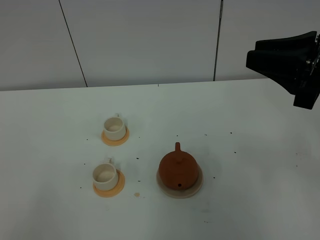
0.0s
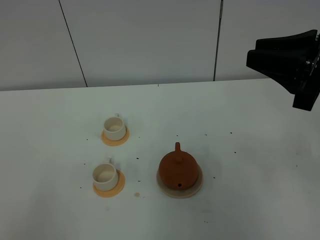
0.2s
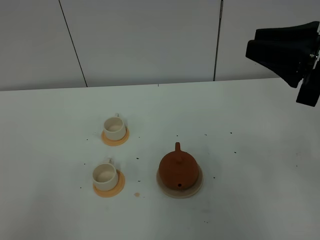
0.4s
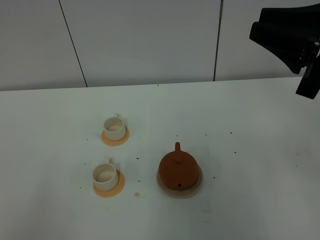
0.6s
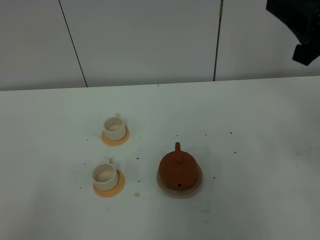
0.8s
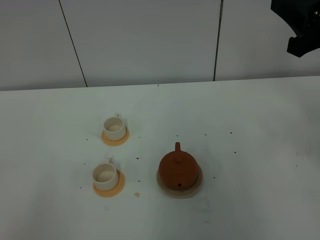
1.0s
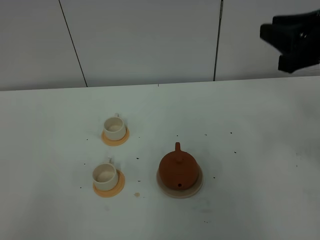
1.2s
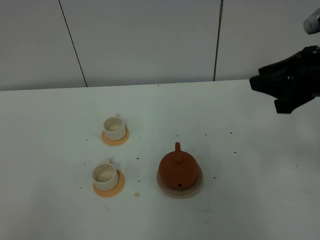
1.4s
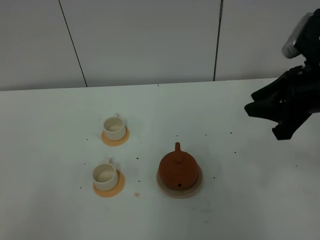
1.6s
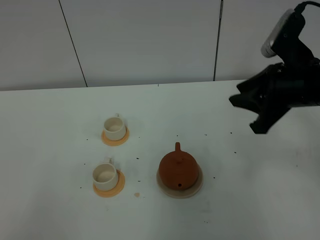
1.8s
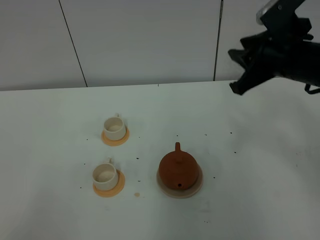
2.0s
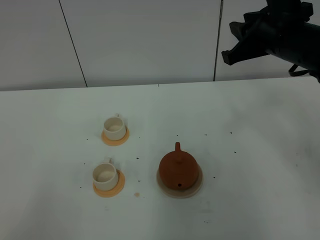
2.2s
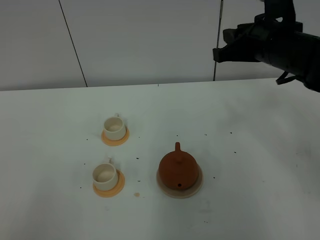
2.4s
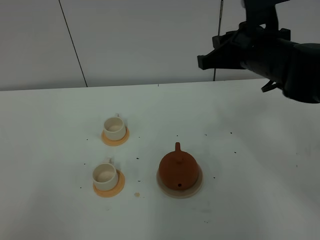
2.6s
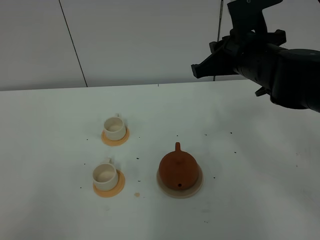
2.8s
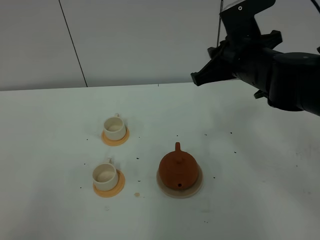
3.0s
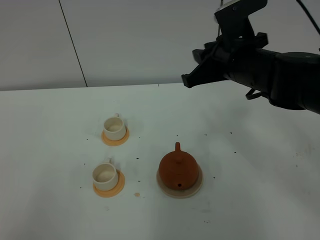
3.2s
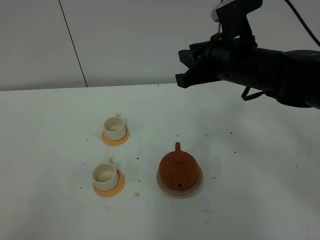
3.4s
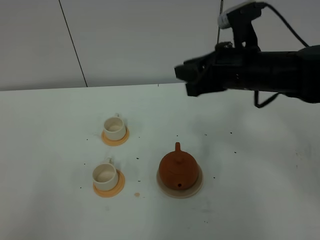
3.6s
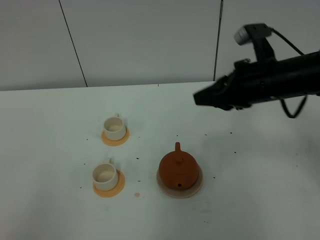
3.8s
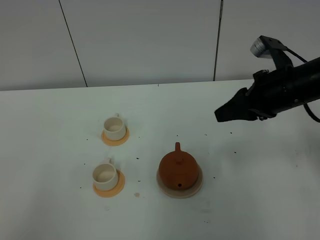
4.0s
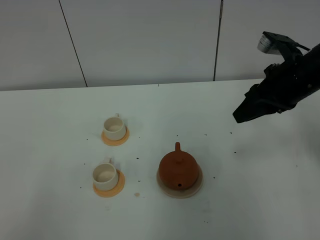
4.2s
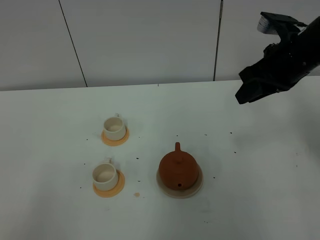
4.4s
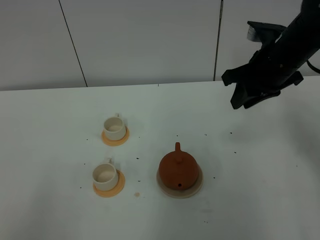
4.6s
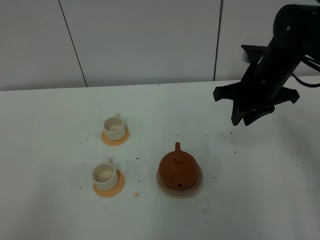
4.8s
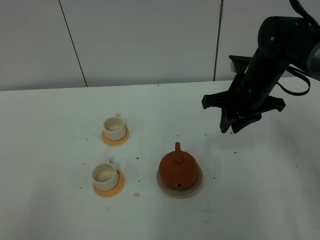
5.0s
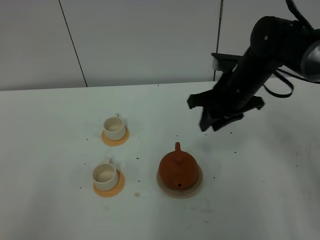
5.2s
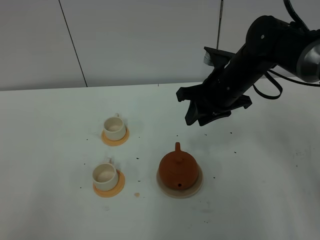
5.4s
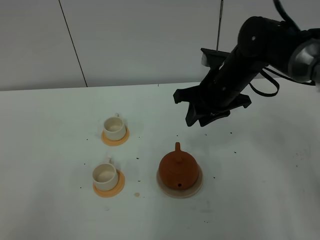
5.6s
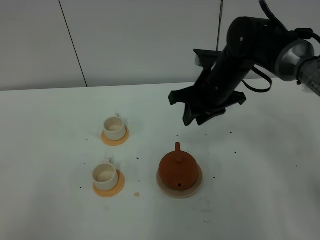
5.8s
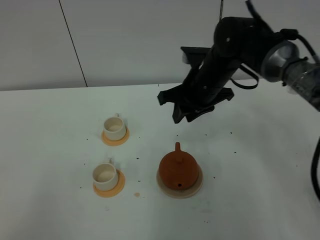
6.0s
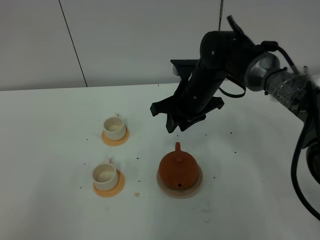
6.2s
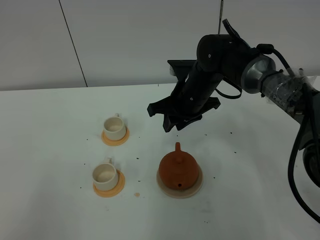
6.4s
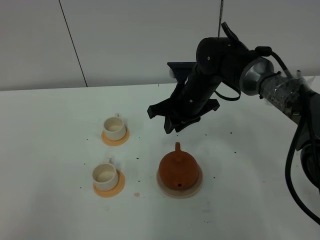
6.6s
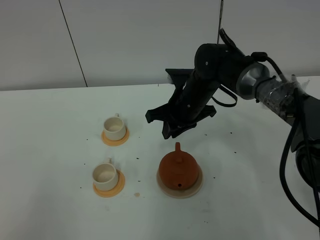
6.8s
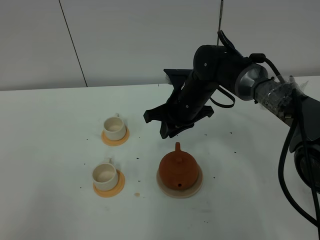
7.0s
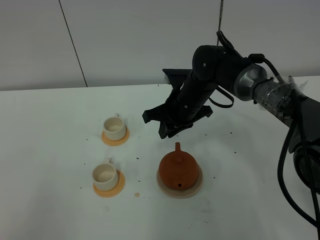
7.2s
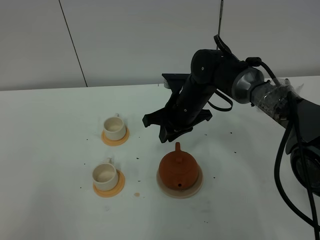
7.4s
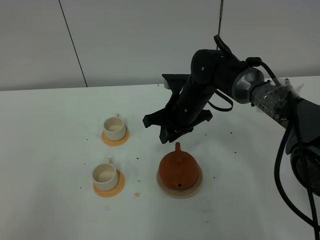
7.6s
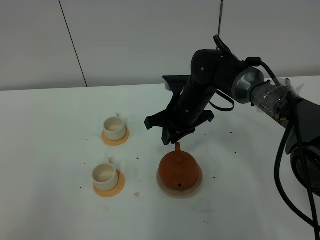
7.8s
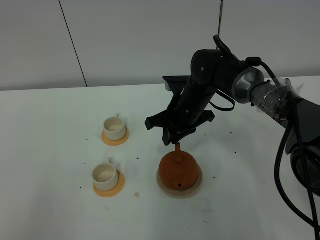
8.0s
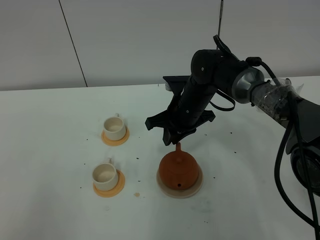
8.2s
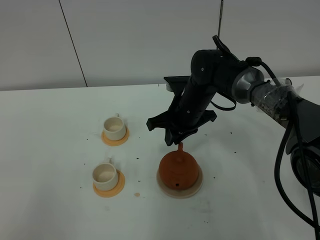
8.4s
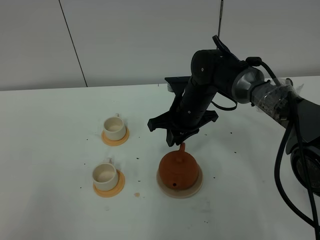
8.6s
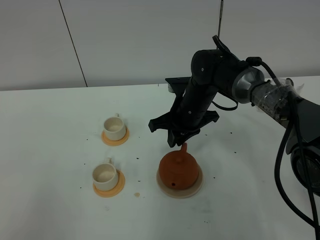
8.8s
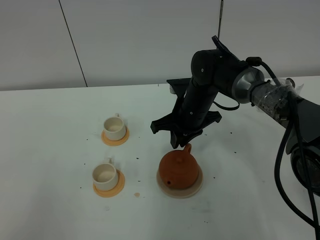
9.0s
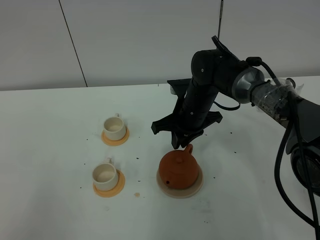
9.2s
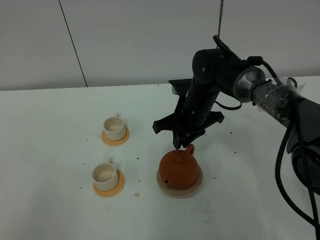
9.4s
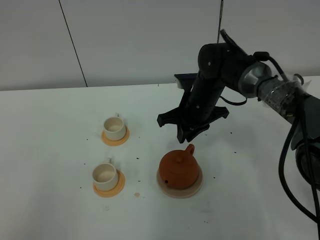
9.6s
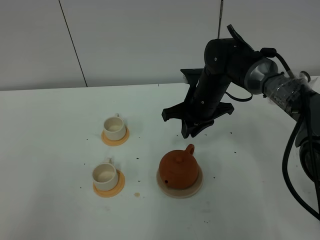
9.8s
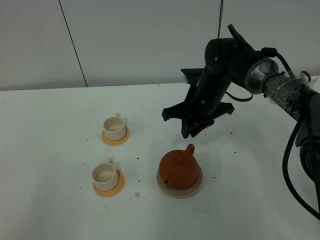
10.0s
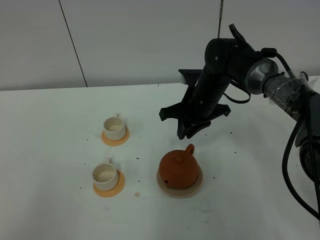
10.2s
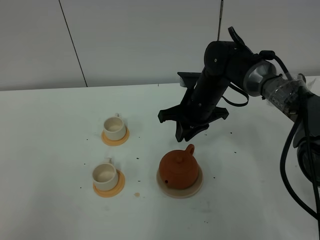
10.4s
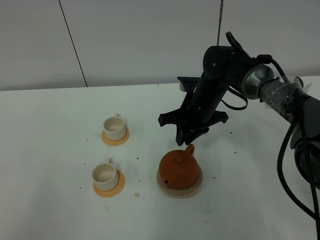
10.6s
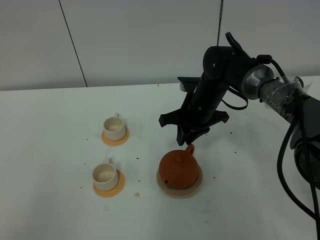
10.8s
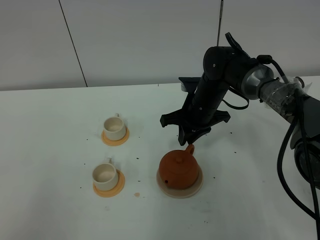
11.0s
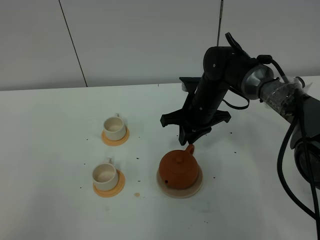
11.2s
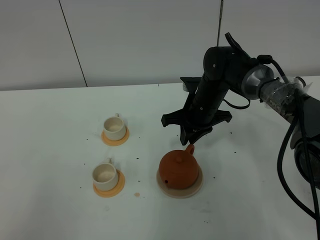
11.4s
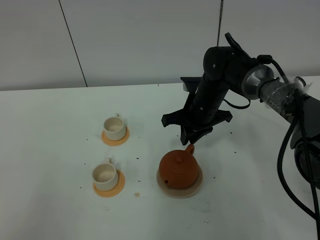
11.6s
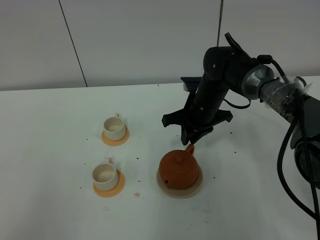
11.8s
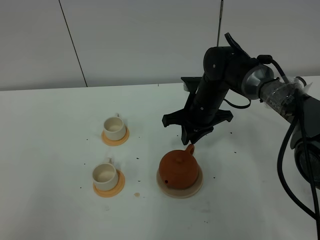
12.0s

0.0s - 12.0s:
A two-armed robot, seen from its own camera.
Task of the whole recording: grasp the brown teapot and pour the tea into the two white teacups one by one, put the brown teapot back in its original place.
0.0s - 1.6s: The right gripper goes some 5 cm downward.
1.6s - 3.0s: The right gripper moves to the left and forward, roughly 10 cm.
3.0s - 4.4s: The right gripper goes some 5 cm to the right.
4.4s - 6.0s: The right gripper travels to the left and downward by roughly 15 cm.
6.0s - 7.6s: The right gripper shifts about 5 cm downward, and closes.
7.6s - 10.4s: The grippers stay close to where they were, moving slightly.
10.4s - 12.0s: The two grippers keep their place.

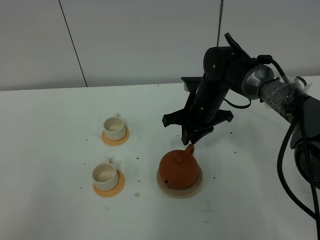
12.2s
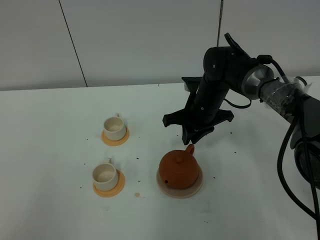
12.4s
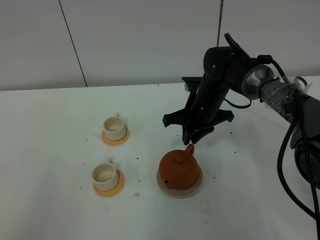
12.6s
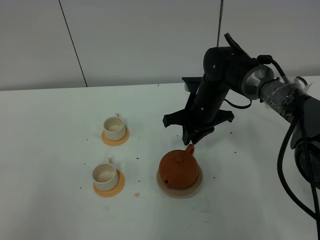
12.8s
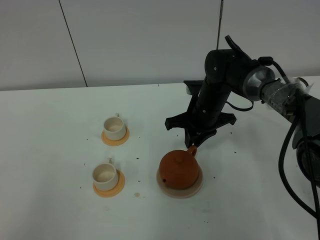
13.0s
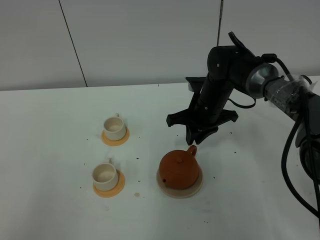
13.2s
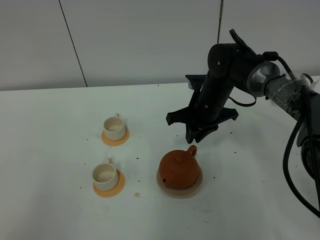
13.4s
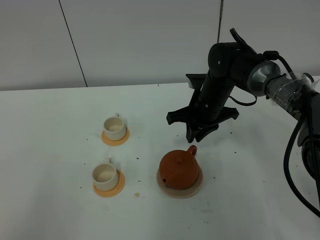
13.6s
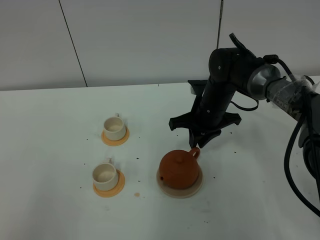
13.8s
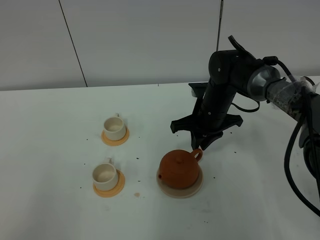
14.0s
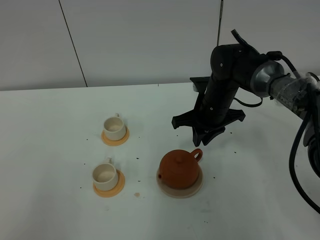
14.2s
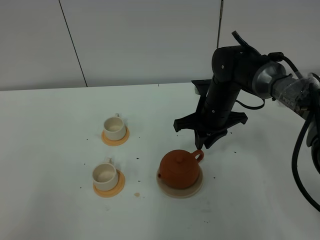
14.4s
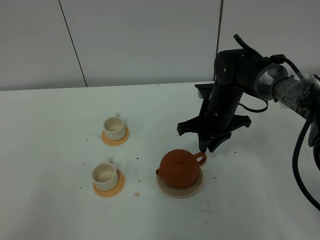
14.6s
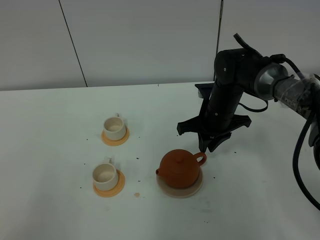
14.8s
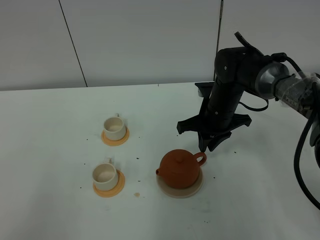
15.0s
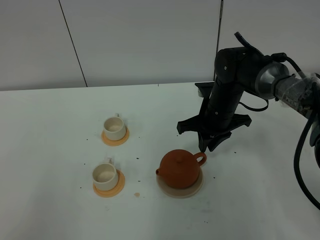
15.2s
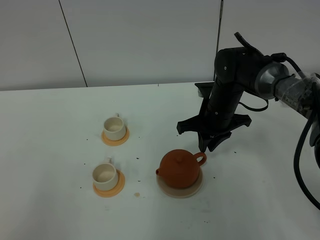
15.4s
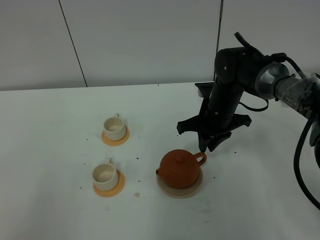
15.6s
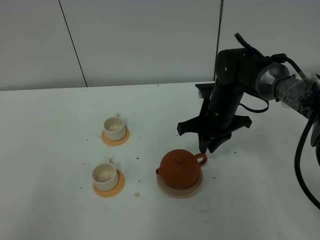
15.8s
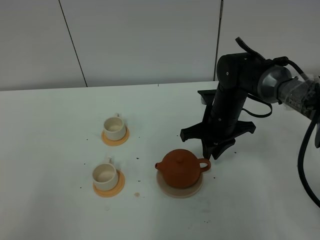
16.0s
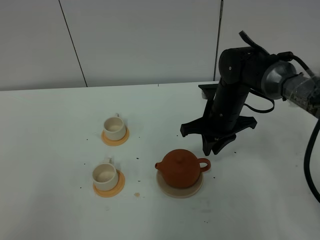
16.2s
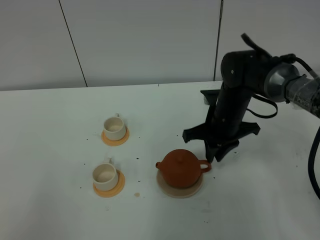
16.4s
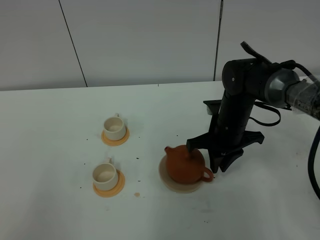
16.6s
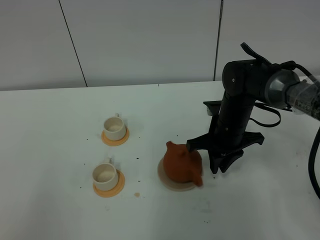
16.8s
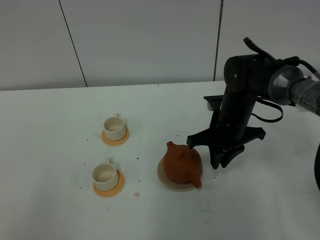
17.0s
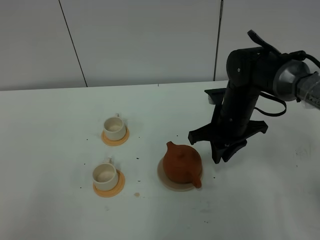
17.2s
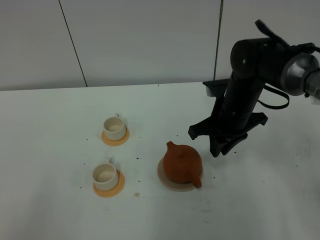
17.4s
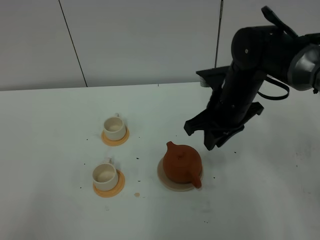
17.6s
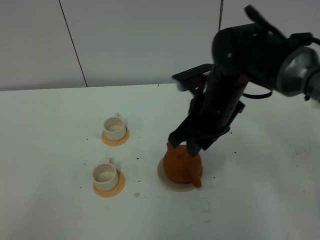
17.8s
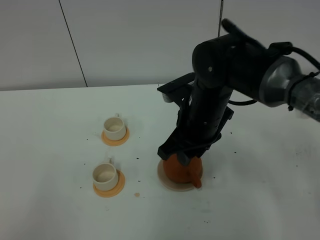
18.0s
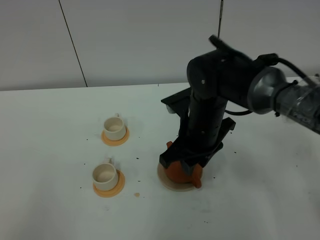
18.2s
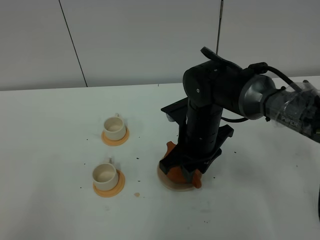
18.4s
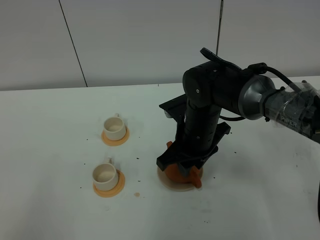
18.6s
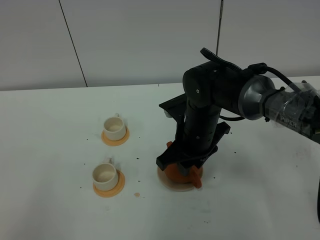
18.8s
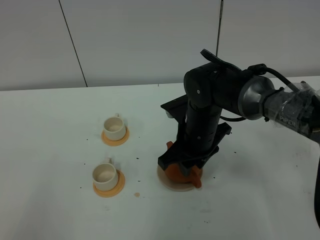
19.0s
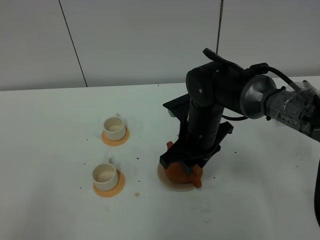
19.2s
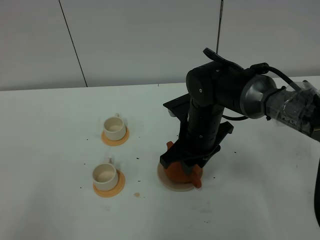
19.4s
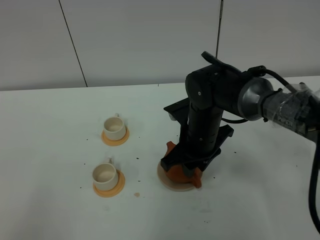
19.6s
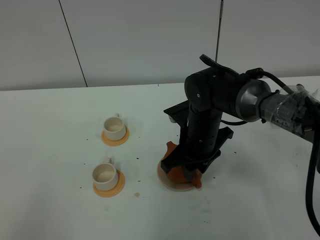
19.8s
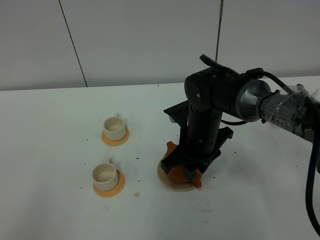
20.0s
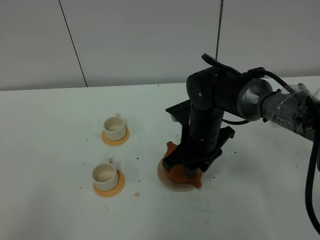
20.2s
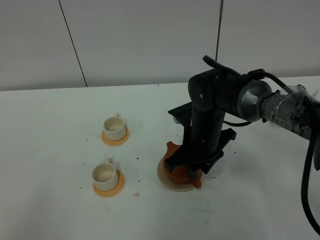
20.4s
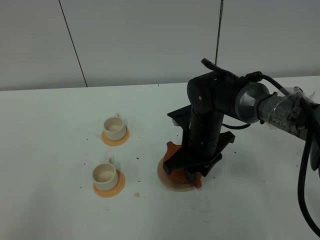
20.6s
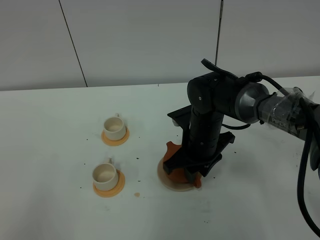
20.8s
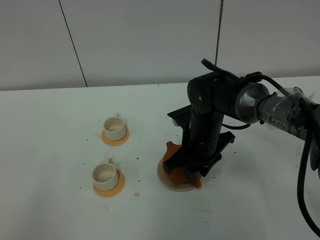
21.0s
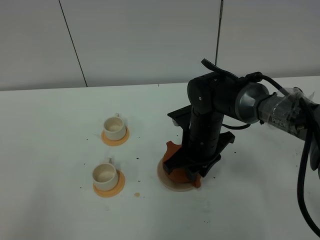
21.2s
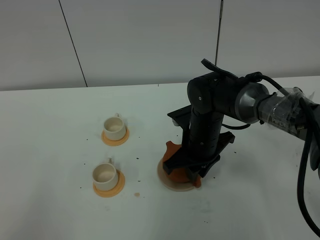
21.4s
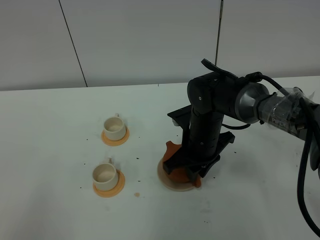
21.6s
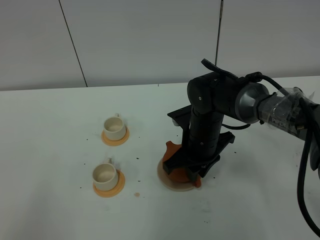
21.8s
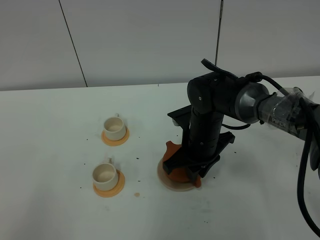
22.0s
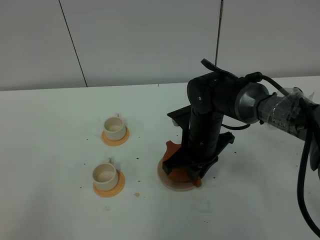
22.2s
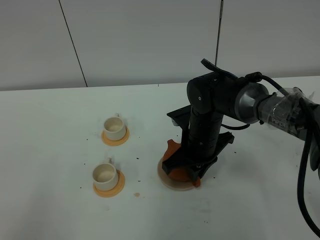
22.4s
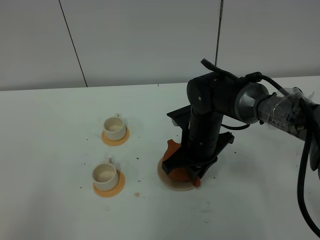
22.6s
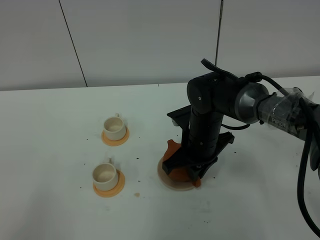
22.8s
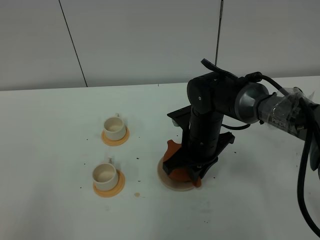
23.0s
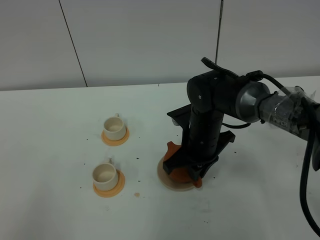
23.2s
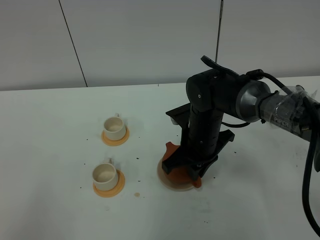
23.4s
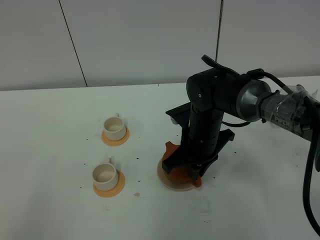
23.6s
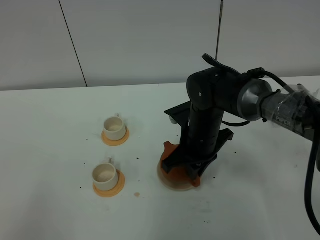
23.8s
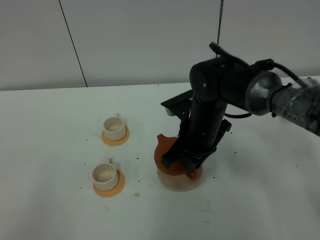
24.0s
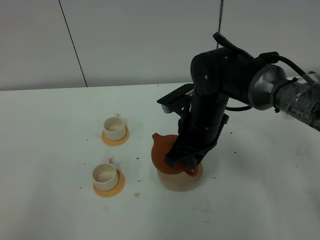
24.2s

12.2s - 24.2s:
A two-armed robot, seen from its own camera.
Task of the whole recording: grasp the brown teapot and pour the tea into the two white teacups one by one, put the brown teapot back in its original place.
Step, 12.2s - 24.0s: Pick up the teapot with the right gripper.
12.2s - 15.2s: There are only small adjustments of the grippers.
15.2s - 16.6s: The grippers make only small movements.
16.6s - 18.2s: The right gripper heads to the left, upward and backward, covering some 10 cm, and opens its fingers.
18.2s - 21.2s: There are only small adjustments of the grippers.
22.6s - 24.2s: The right gripper is displaced upward by some 5 cm.
